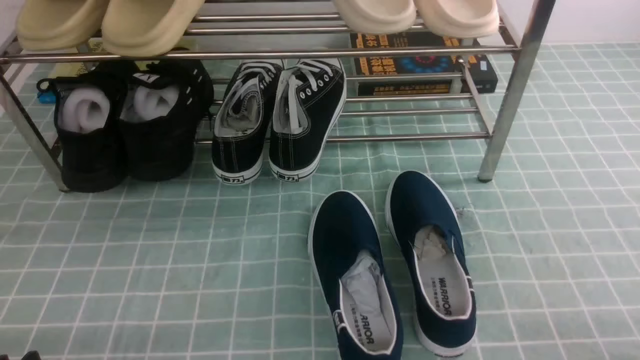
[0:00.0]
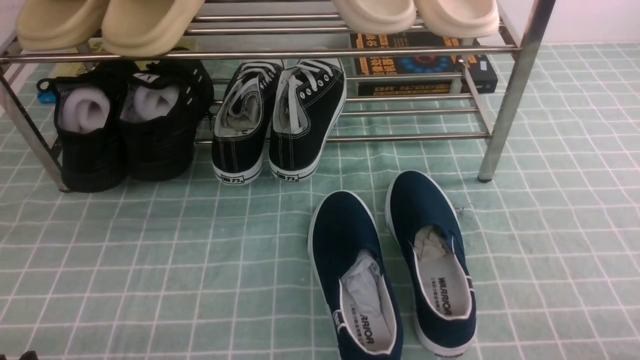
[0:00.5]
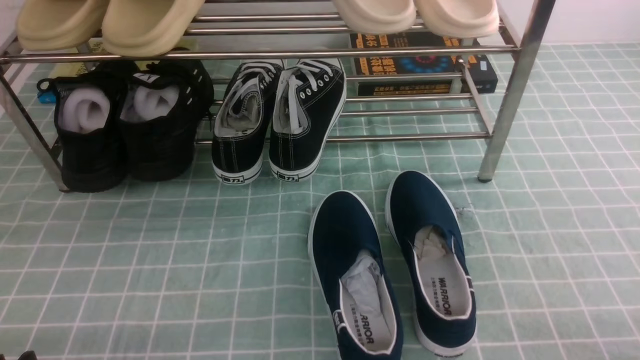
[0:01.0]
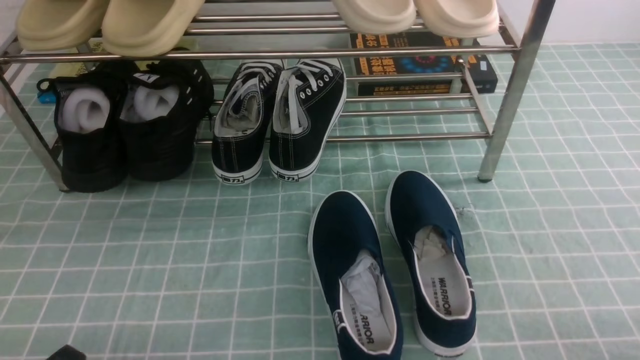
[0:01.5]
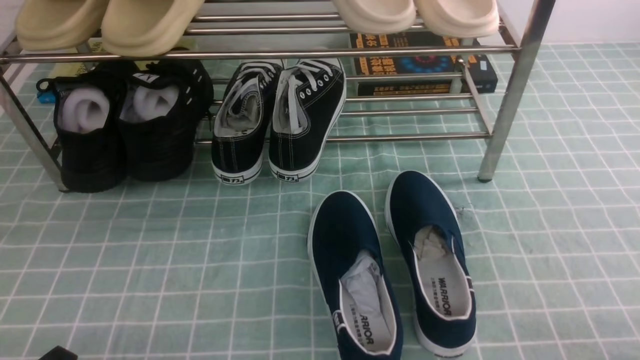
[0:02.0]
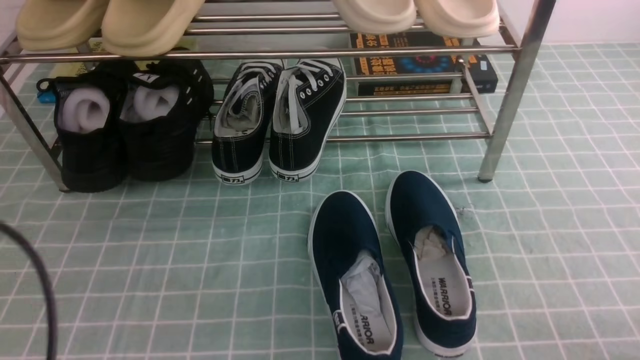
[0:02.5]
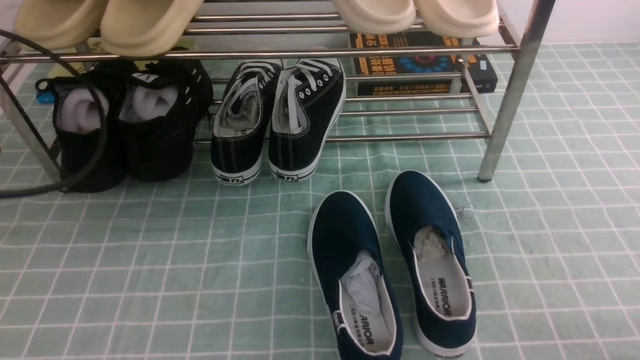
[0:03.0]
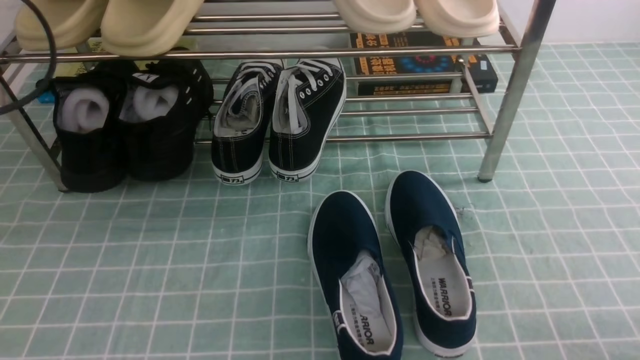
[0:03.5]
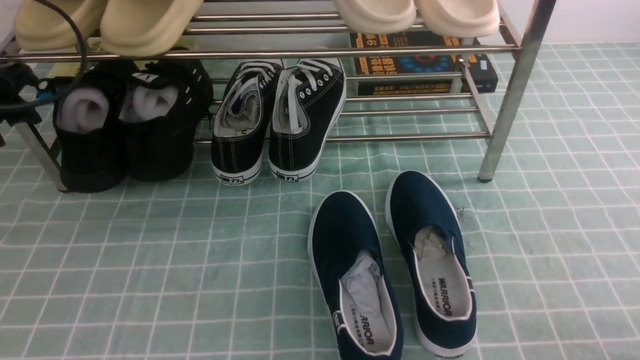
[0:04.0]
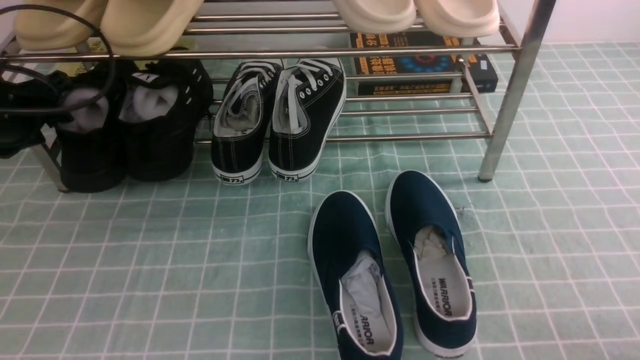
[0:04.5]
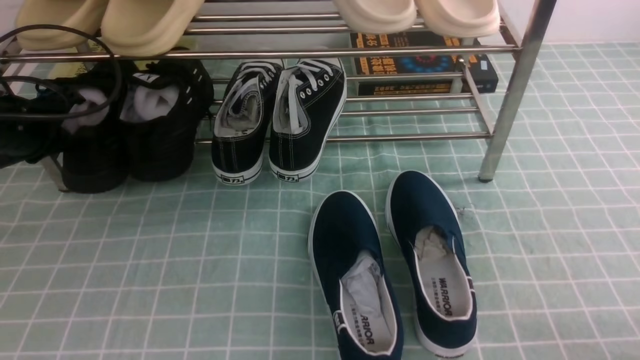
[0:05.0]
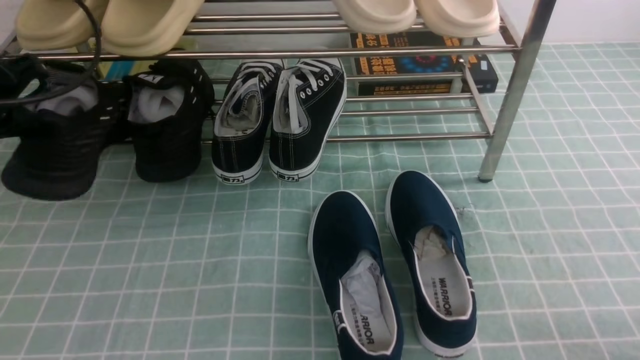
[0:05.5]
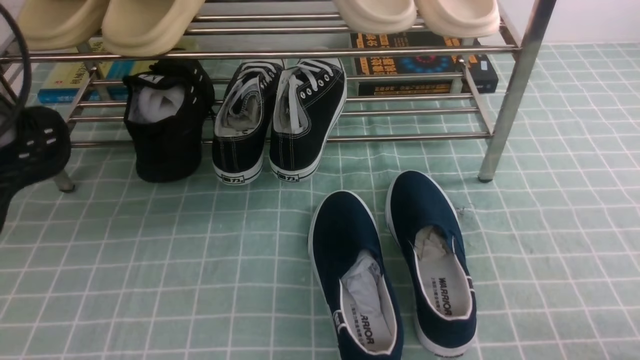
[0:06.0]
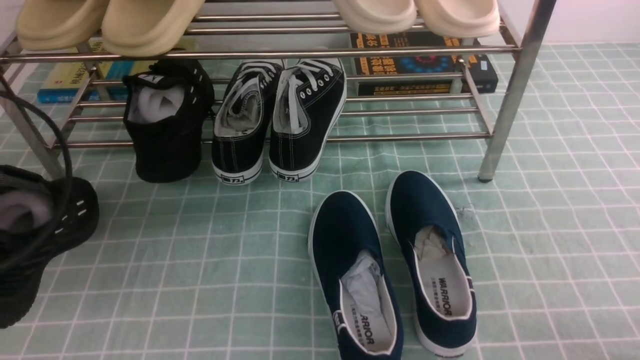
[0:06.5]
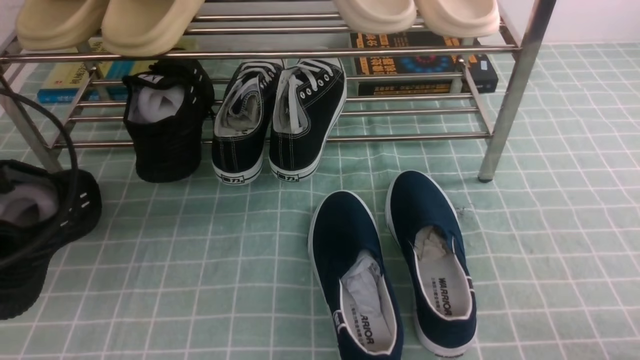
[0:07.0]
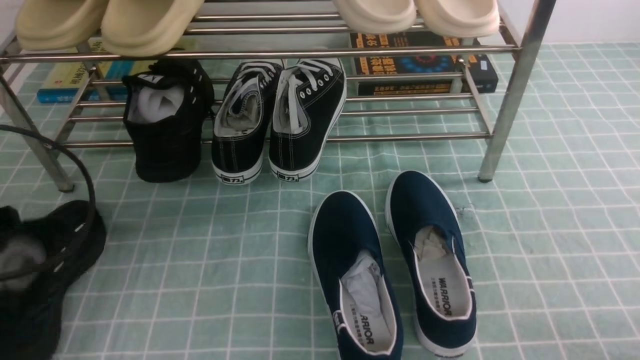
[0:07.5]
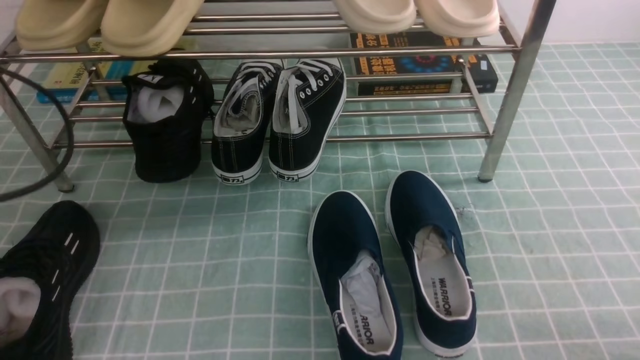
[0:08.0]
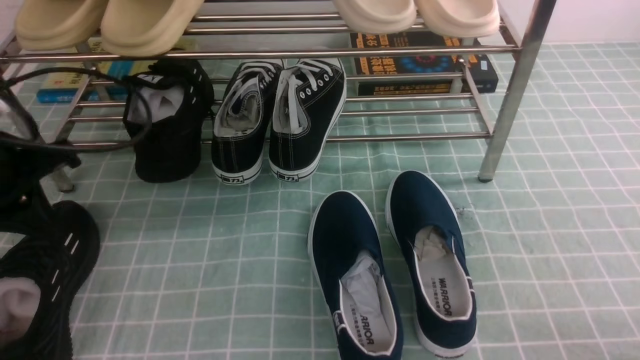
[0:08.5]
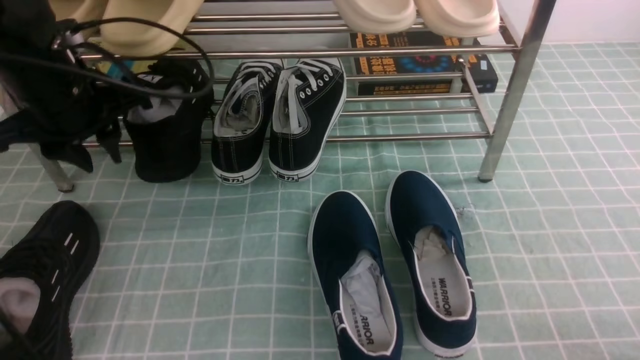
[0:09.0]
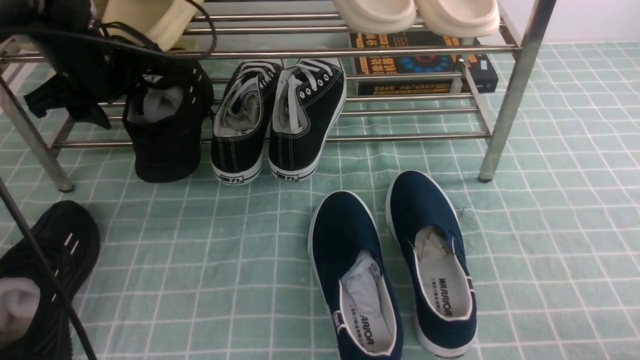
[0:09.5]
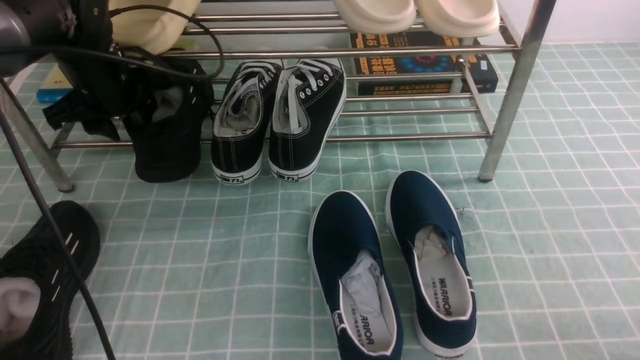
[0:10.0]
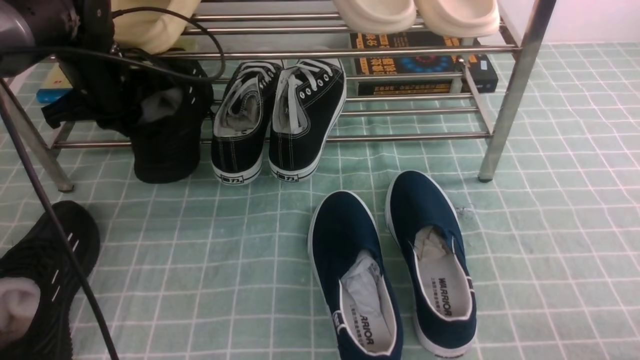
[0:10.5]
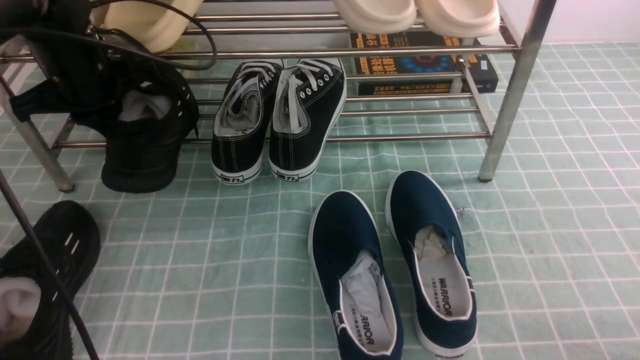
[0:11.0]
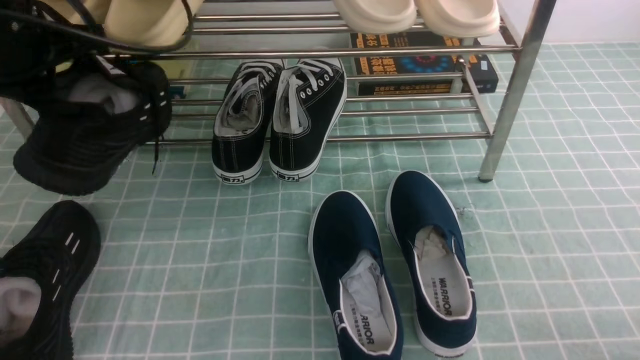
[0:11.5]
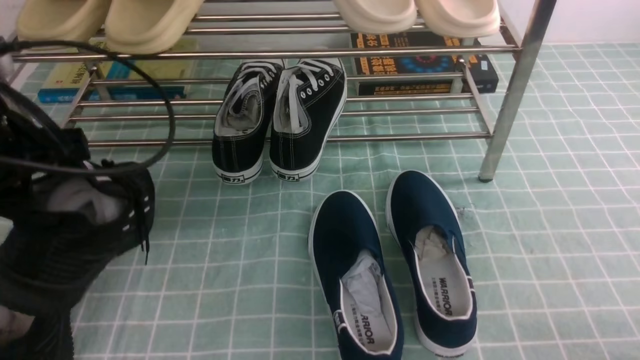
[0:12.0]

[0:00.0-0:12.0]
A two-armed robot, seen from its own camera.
Step, 0:00.0 to 0:04.5: use the left arm to clamp a shoe on the left side of the shoe rack.
Step, 0:05.0 to 0:08.0: Use your left arm to remove the clamped shoe from the shoe rack and put it down.
Step, 0:08.5 to 0:10.5: use the left arm to clamp a shoe on the left side of the shoe rack.
0:02.0 to 0:04.0: The left gripper is displaced forward by about 30 cm, and opens.
0:04.0 to 0:06.0: The left gripper goes about 15 cm backward and upward, and closes up.
0:06.0 to 0:08.0: The left gripper opens.
0:08.0 to 0:10.0: The left gripper moves forward and to the right, roughly 20 cm, and closes, then opens again.
0:10.0 to 0:12.0: The left gripper is displaced backward by about 15 cm, and closes.

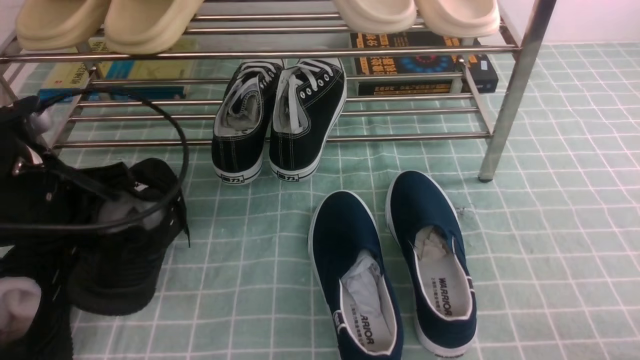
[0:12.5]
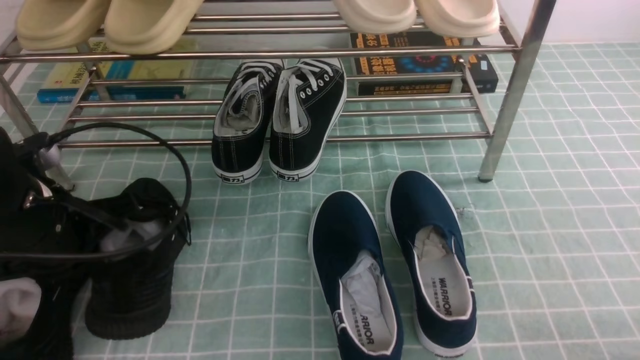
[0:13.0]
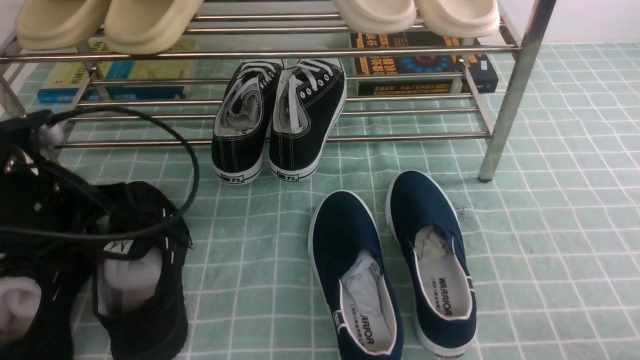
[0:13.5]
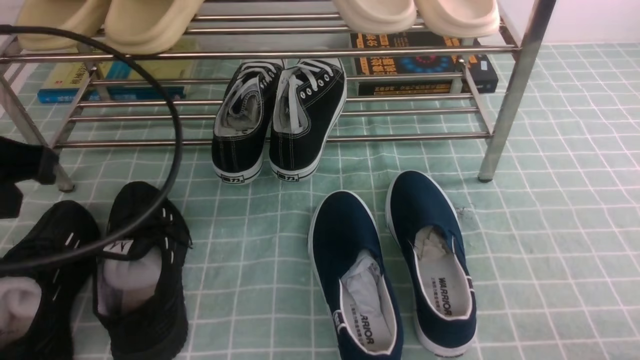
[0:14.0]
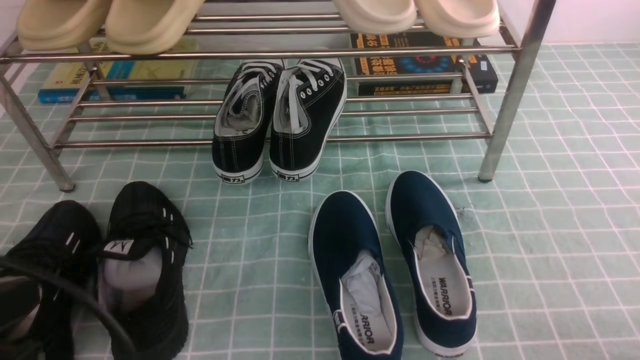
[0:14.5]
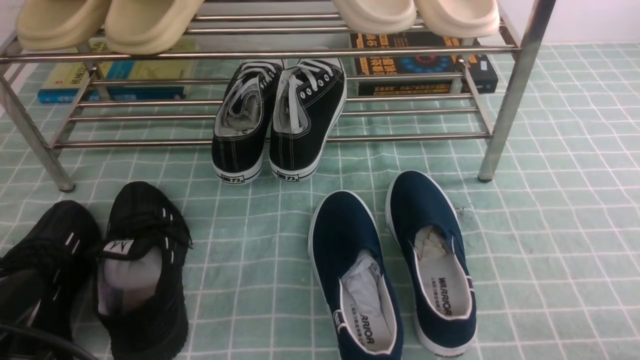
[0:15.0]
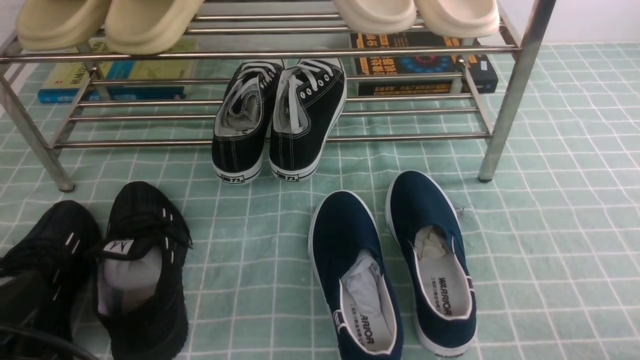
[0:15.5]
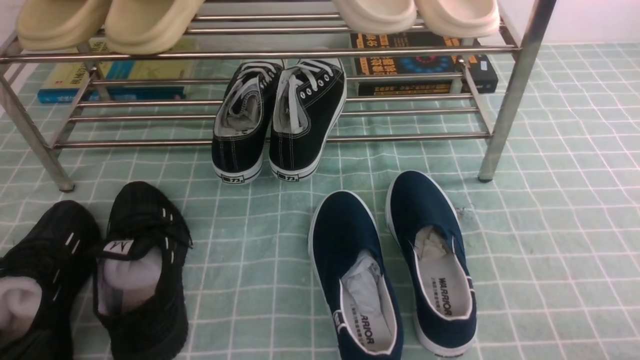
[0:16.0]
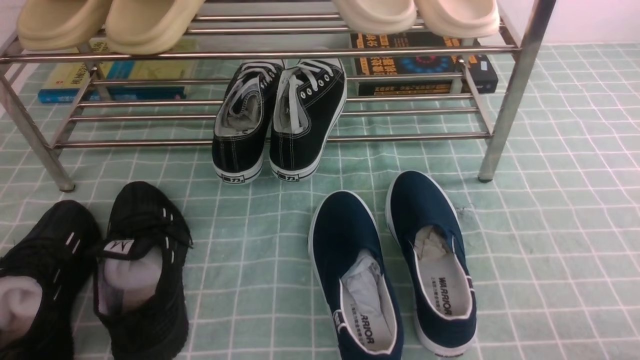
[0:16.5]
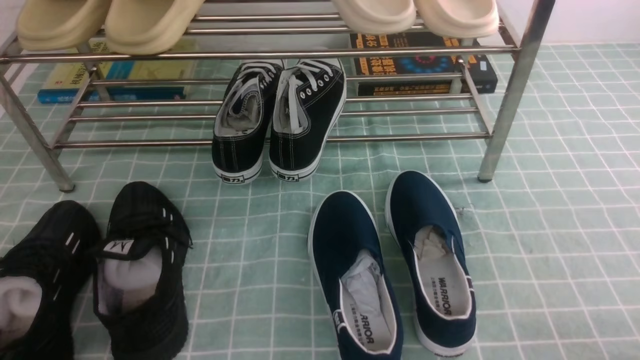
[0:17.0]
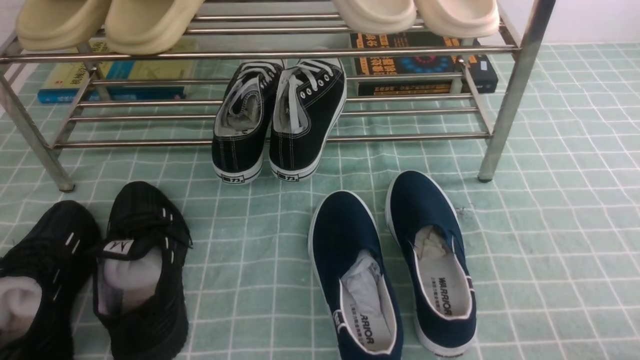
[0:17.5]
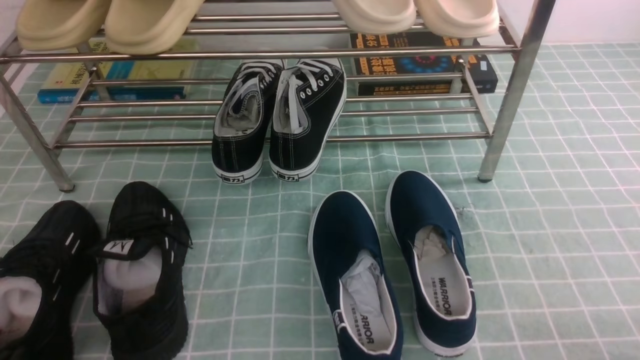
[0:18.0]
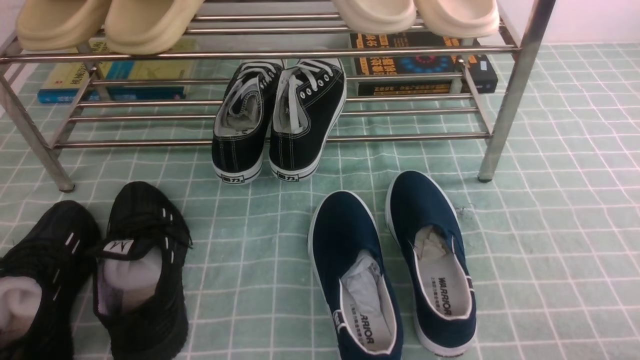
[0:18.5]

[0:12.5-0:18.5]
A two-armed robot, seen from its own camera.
0:12.5 to 0:14.5: The left gripper goes about 15 cm backward, and opens and closes again.
0:14.5 to 0:16.5: The left gripper is displaced downward by approximately 15 cm.
0:16.5 to 0:18.5: Both grippers stay put.

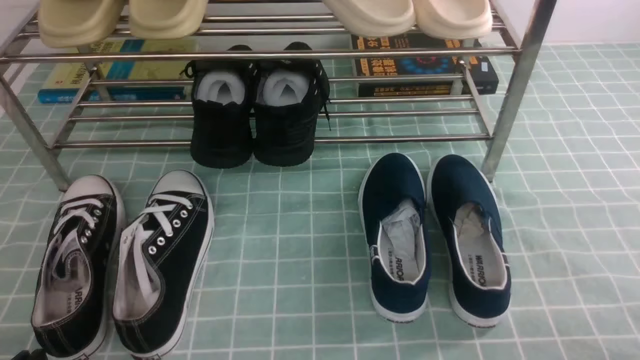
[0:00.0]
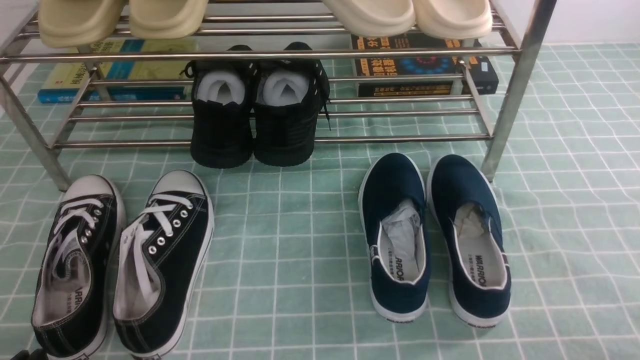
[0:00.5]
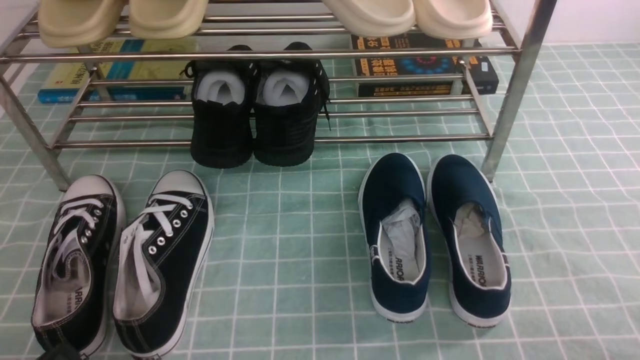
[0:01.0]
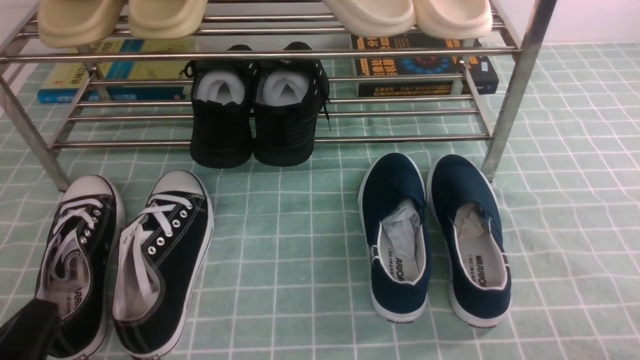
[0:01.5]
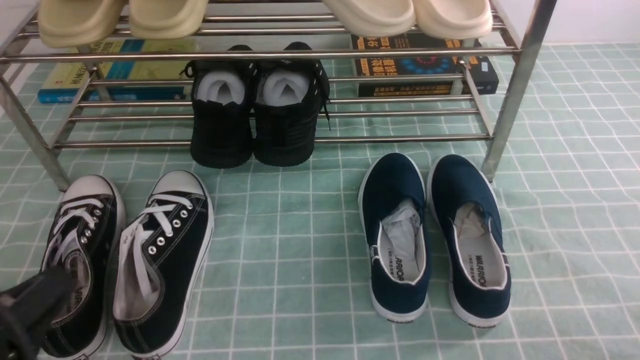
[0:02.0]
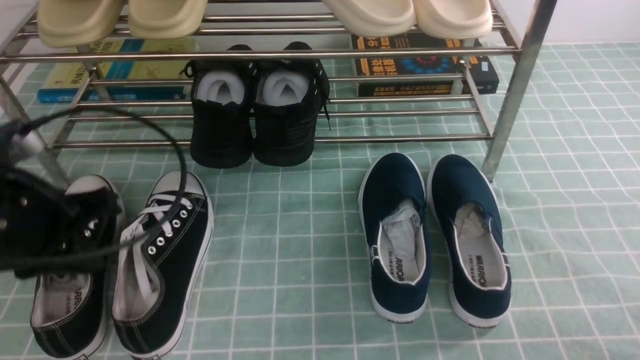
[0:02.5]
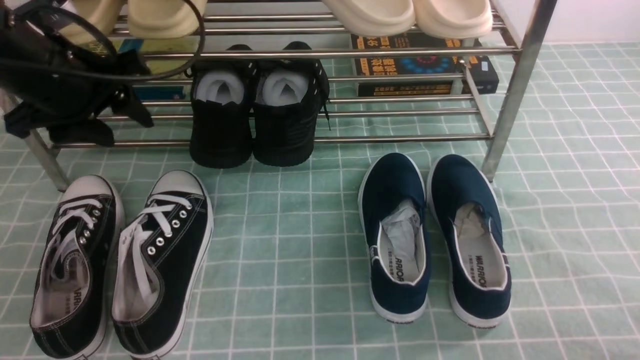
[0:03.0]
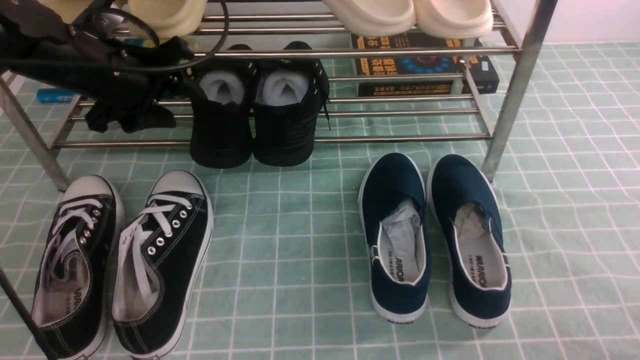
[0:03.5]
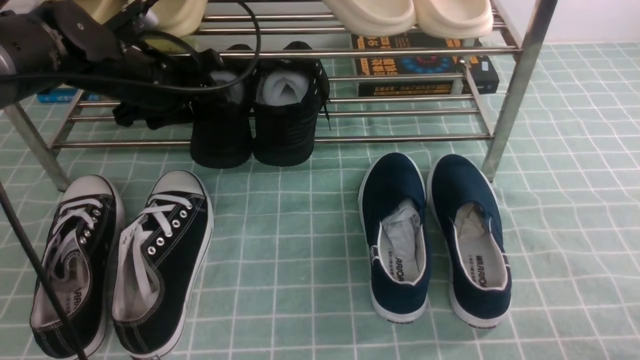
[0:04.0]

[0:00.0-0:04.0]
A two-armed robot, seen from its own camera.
0:00.0 to 0:02.0: The left gripper travels upward by roughly 10 cm.
0:02.0 to 0:04.0: The left gripper goes about 35 cm forward, and opens.
